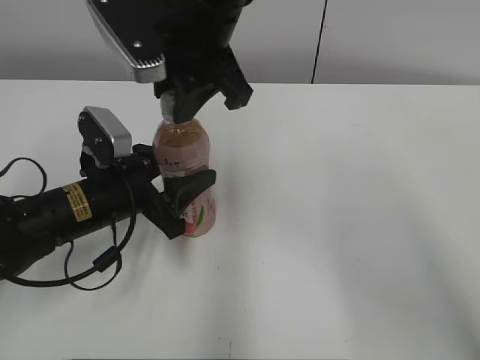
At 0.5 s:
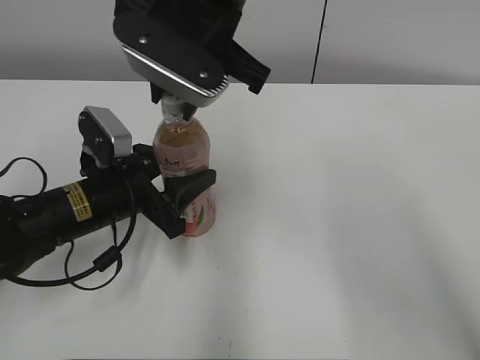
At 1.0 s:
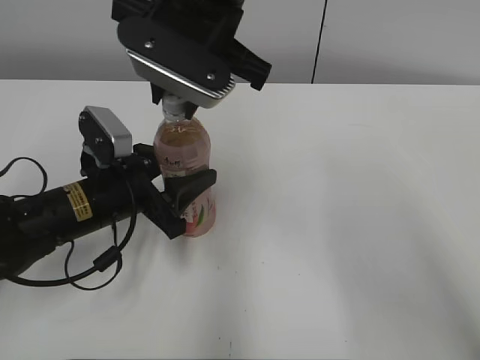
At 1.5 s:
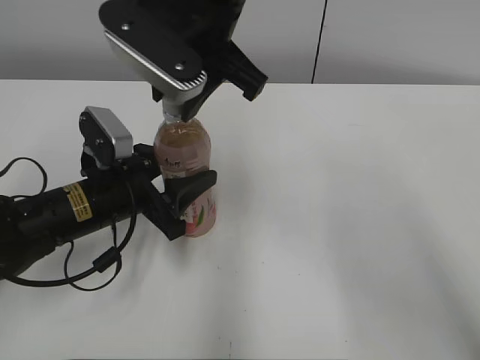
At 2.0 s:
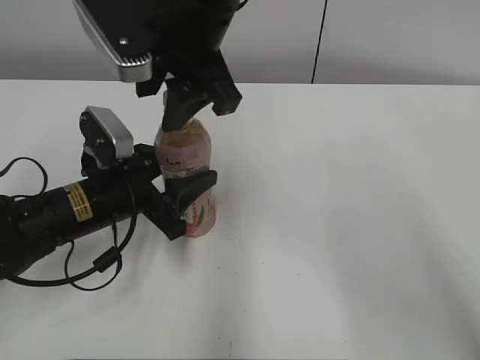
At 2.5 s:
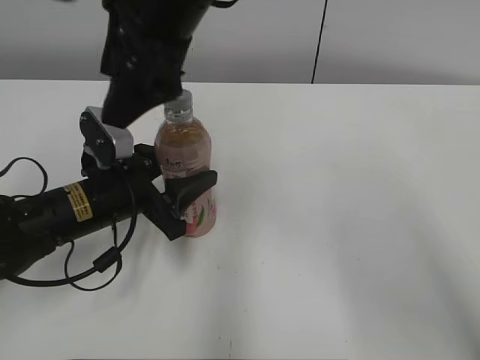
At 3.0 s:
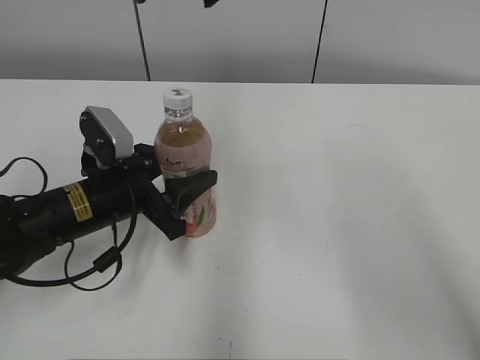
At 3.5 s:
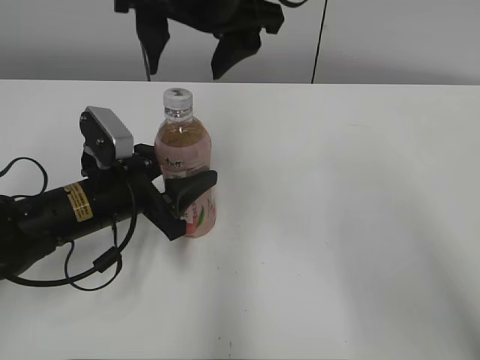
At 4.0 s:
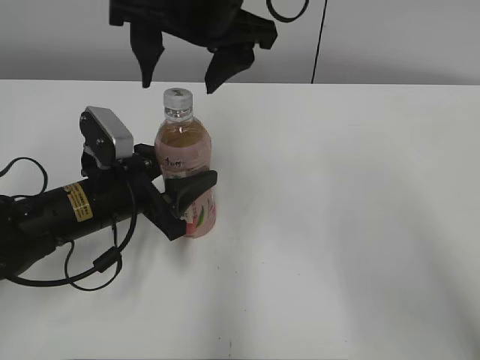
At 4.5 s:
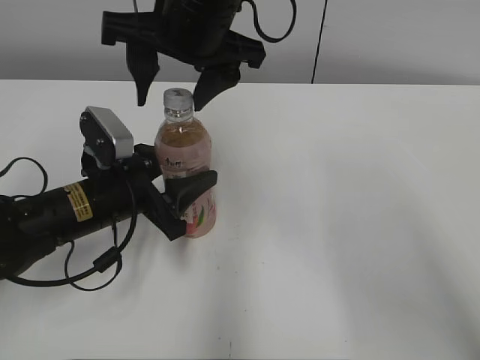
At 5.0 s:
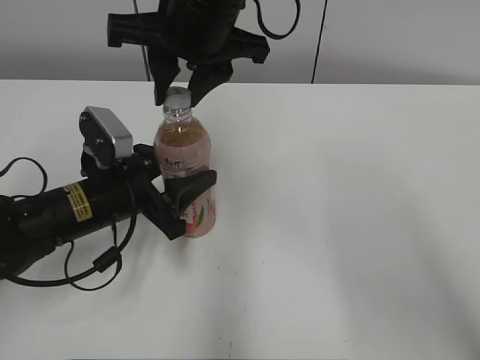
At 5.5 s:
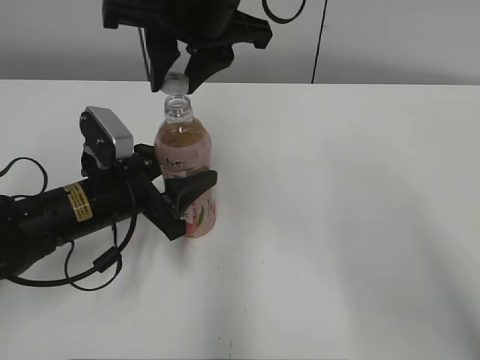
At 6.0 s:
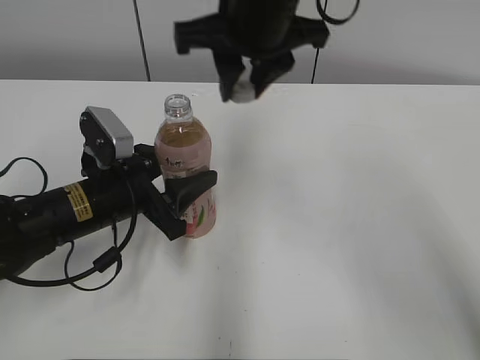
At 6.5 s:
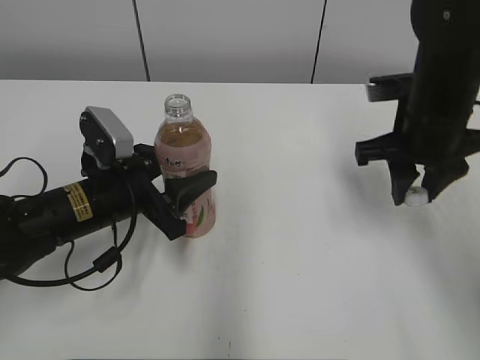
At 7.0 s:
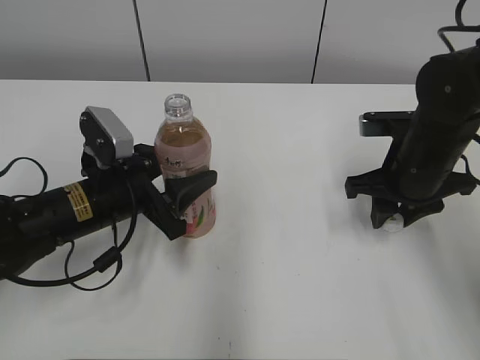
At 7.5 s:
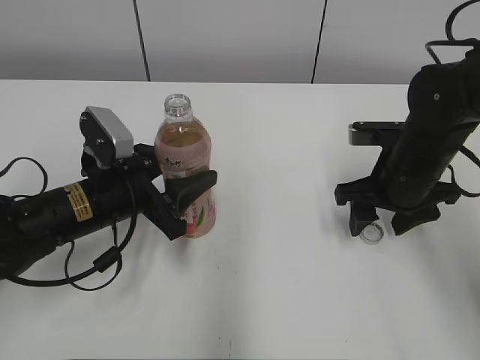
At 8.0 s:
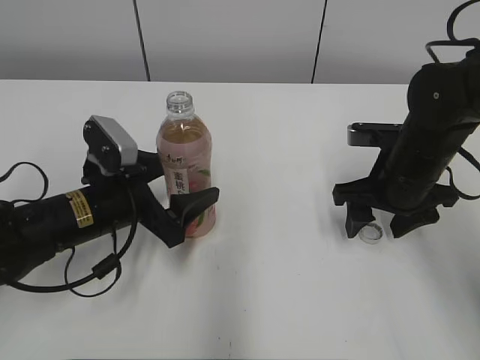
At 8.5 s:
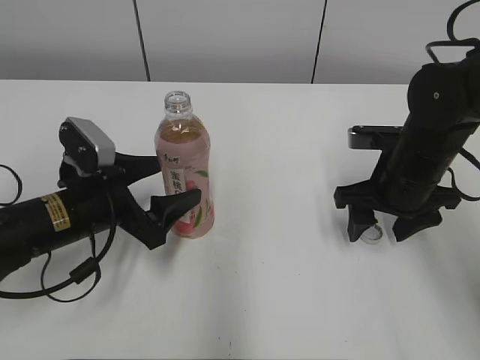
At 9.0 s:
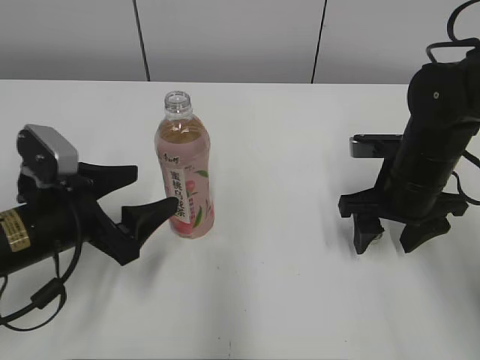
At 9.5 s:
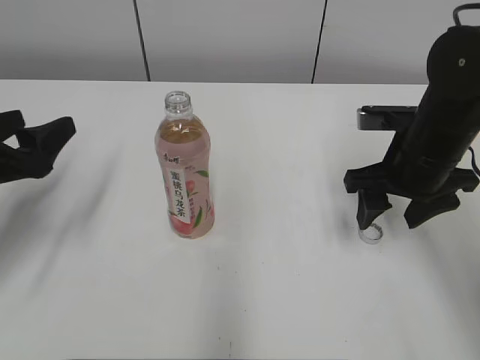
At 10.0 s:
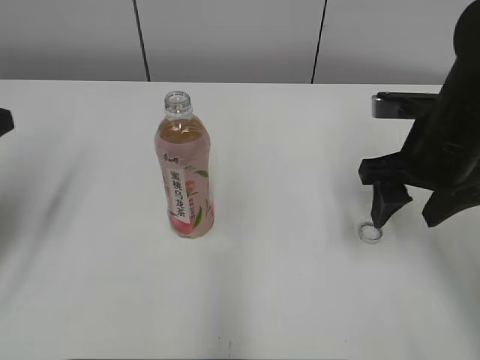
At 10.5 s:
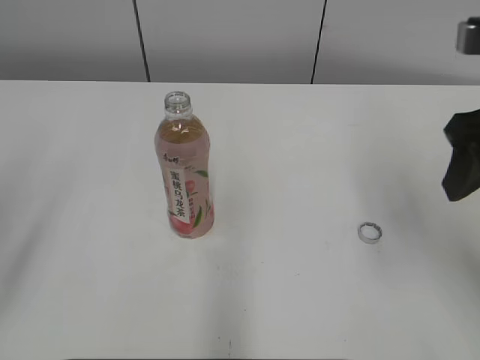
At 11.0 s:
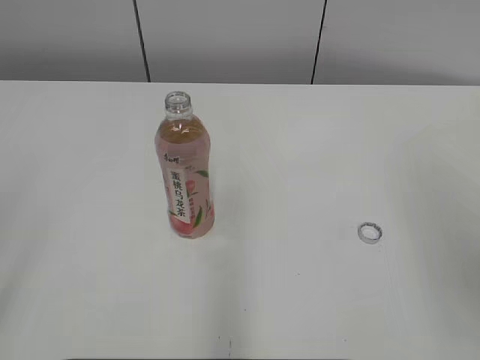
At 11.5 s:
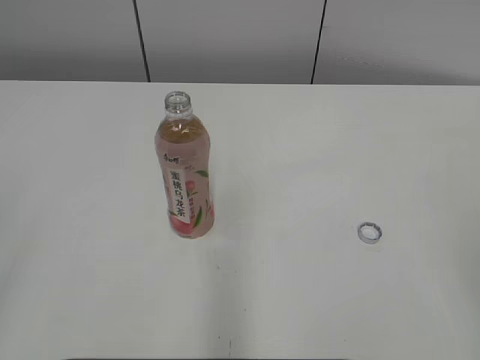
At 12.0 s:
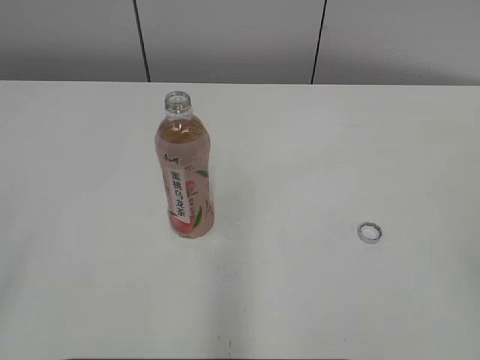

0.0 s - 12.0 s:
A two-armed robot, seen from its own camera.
Step, 5.5 s - 7.5 s: Place the bottle cap on the right.
0.0 s - 2.0 s: The right gripper opens its fingers.
2.0 s - 4.0 s: The right gripper travels upward and back again, some 10 cm each way, and opens.
4.0 s - 6.0 s: The right gripper closes.
6.0 s - 8.0 s: The left gripper opens its fingers; the right gripper heads downward and to the right, covering approximately 25 cm, and opens.
8.0 s - 10.0 s: The right gripper goes about 5 cm upward, while the left gripper is displaced to the left and upward by roughly 20 cm.
10.0 s - 12.0 s: The right gripper shifts roughly 30 cm backward and to the right. Meanwhile the left gripper goes roughly 25 cm backward.

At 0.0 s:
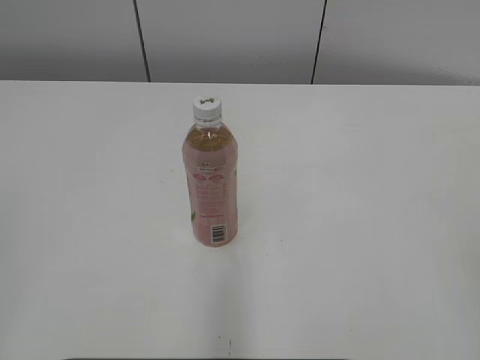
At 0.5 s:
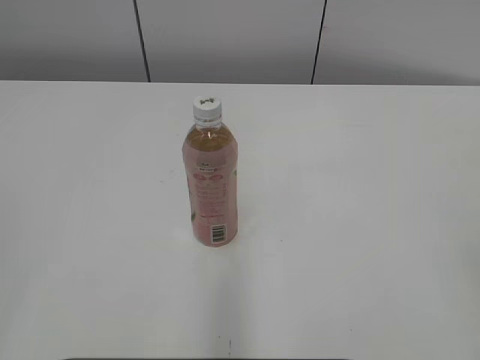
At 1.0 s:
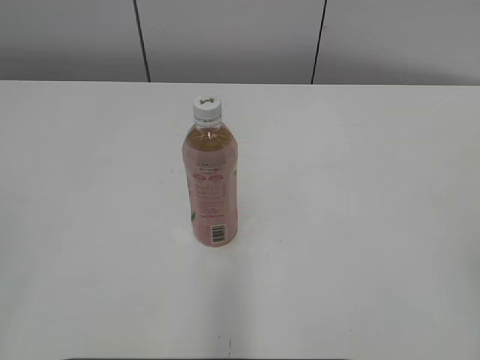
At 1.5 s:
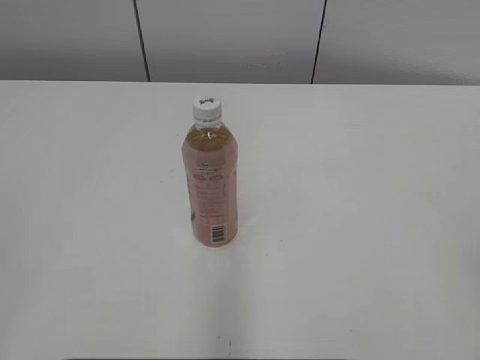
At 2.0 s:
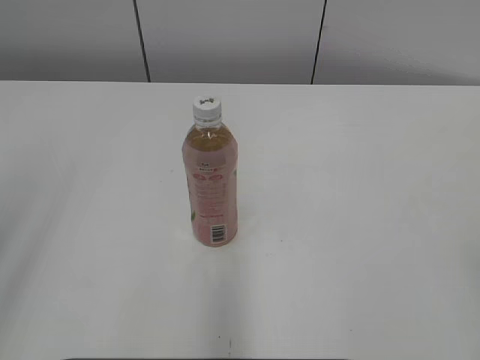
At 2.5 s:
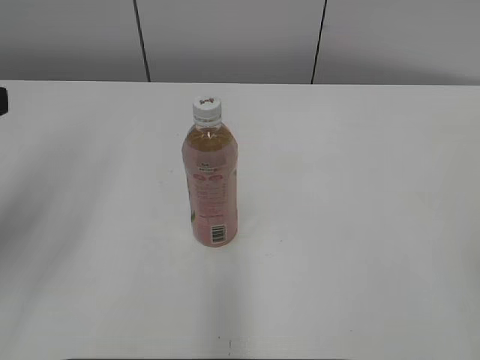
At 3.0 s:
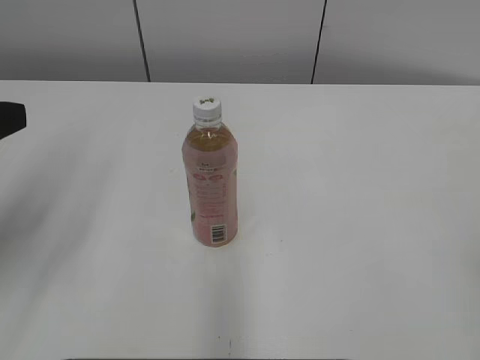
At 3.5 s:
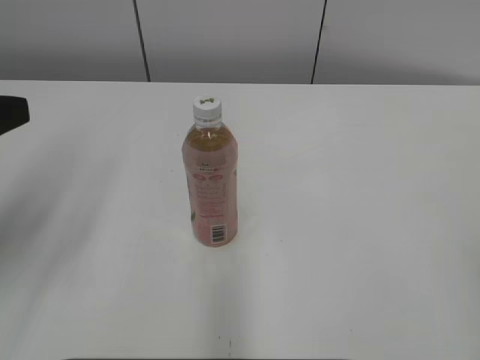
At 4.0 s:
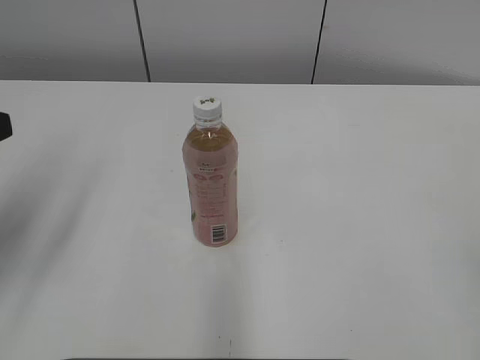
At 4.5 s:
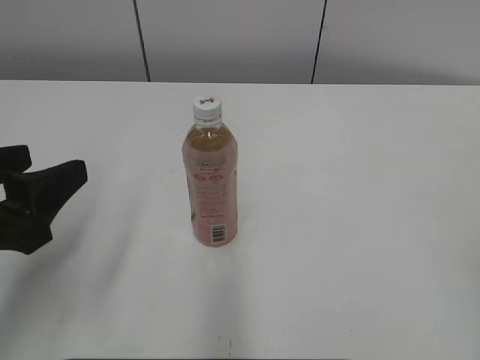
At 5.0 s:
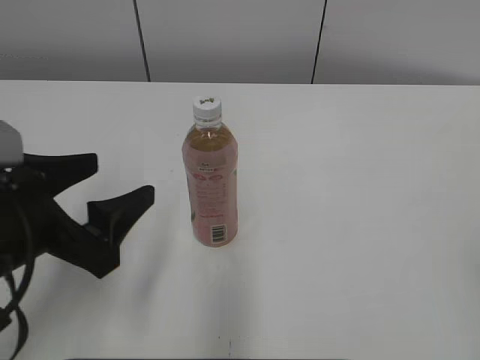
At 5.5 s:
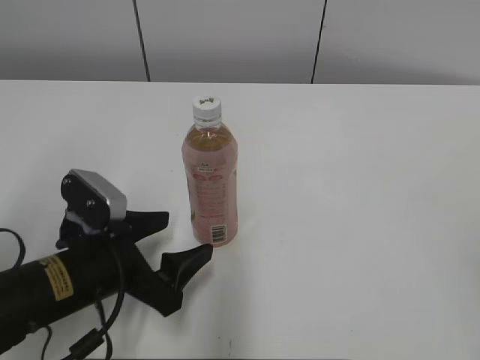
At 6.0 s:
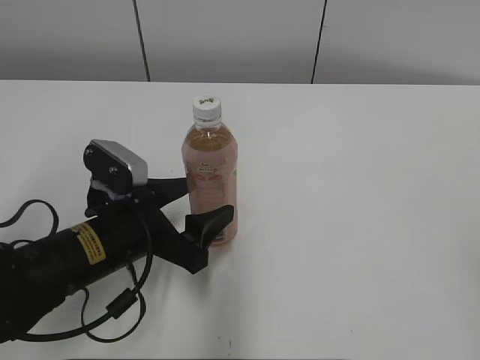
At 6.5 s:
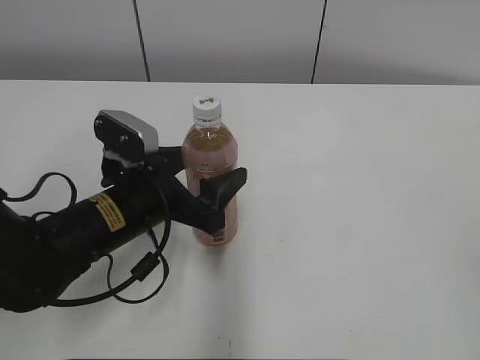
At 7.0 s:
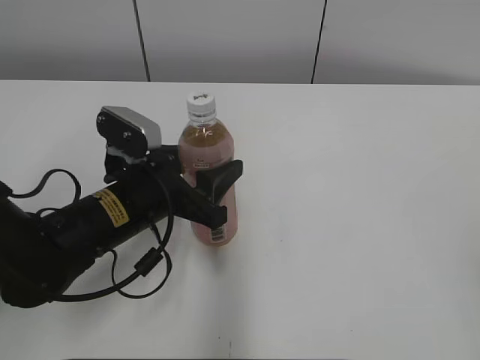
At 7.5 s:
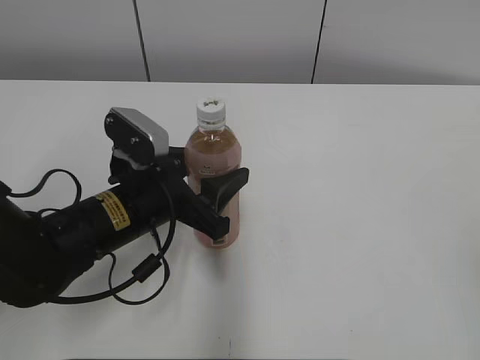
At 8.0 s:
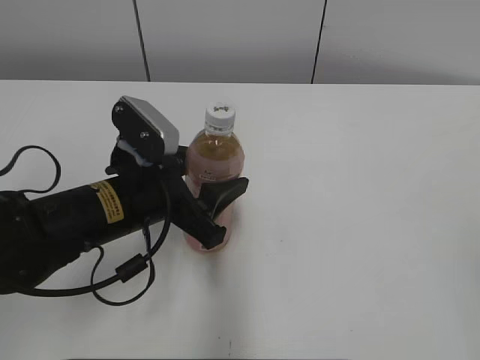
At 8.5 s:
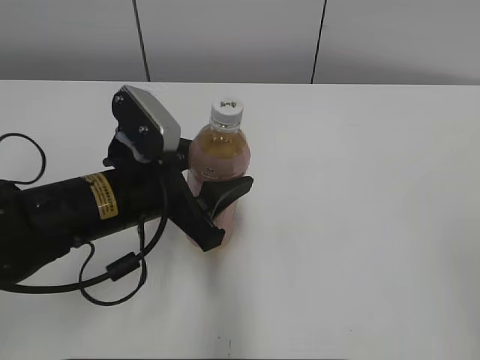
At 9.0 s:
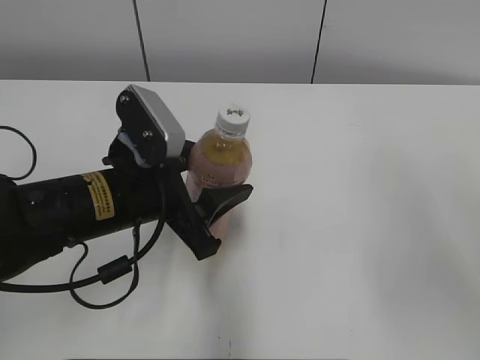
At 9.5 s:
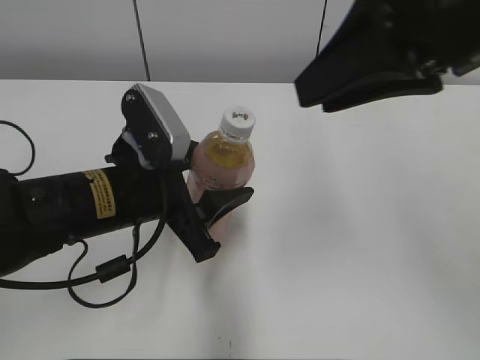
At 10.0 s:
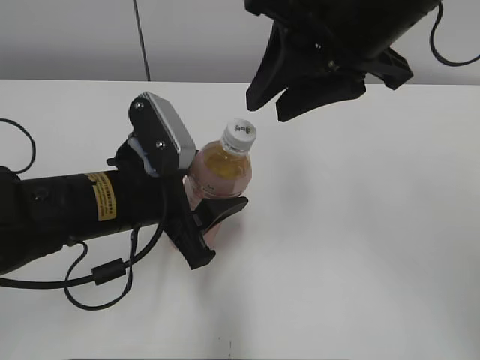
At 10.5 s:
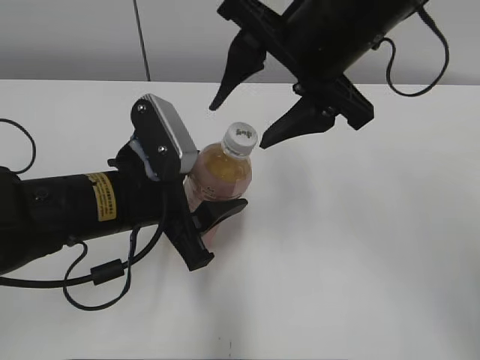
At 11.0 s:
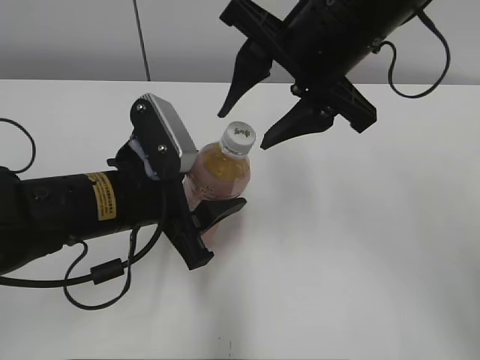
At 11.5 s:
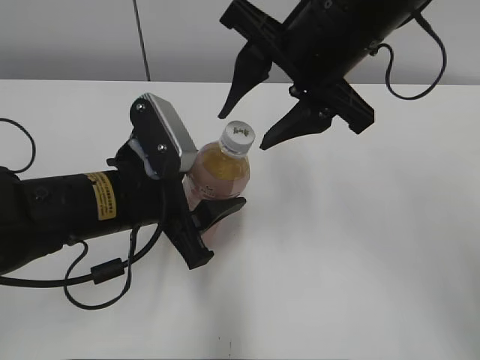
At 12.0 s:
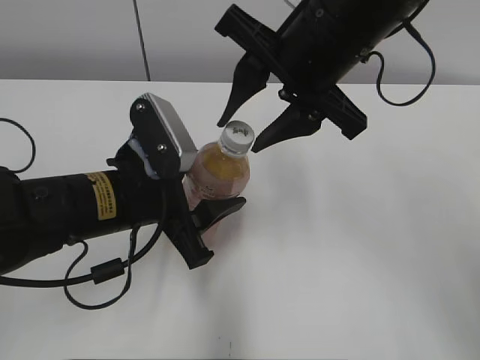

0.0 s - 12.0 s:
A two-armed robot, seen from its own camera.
Step, 0.0 s - 7.0 s: Grab the Peach Oolong Tea with the left hand.
2.0 s - 4.0 s: The left gripper is displaced forward and downward by about 15 cm, and opens up.
4.0 s - 6.0 s: The left gripper is displaced downward and to the right by approximately 20 cm.
6.0 s - 8.0 s: The left gripper closes up.
8.0 s - 10.0 s: The right gripper shifts about 35 cm forward and to the left.
10.0 s - 12.0 s: The right gripper changes place by roughly 5 cm, and opens and closes again.

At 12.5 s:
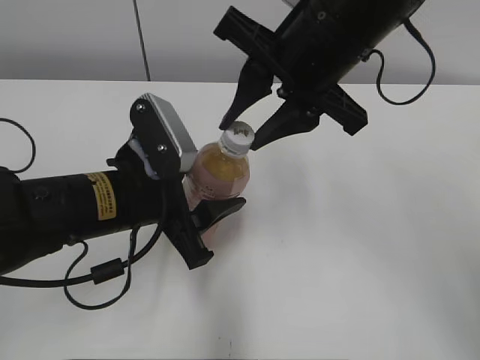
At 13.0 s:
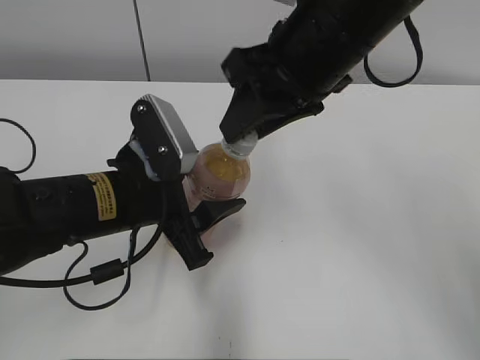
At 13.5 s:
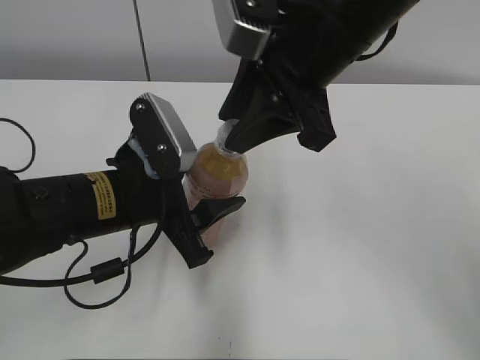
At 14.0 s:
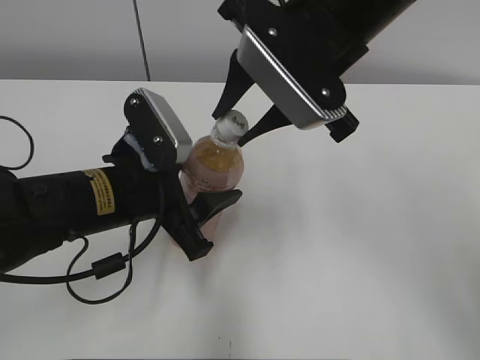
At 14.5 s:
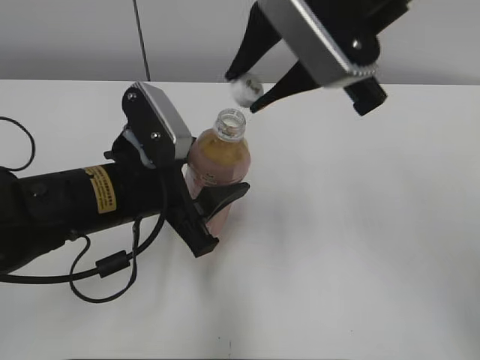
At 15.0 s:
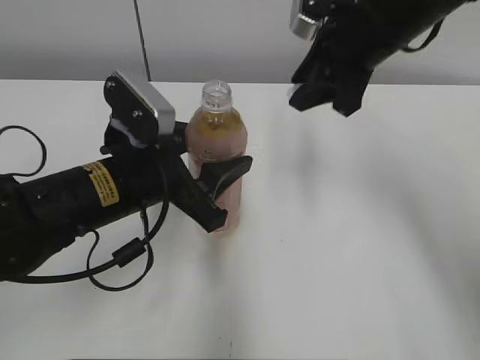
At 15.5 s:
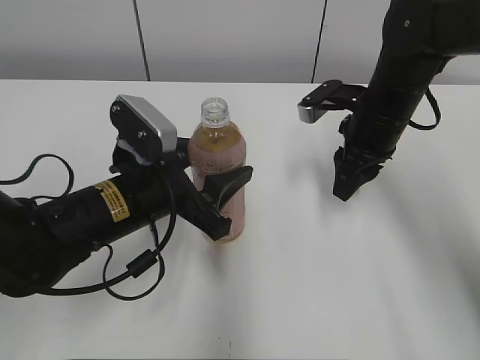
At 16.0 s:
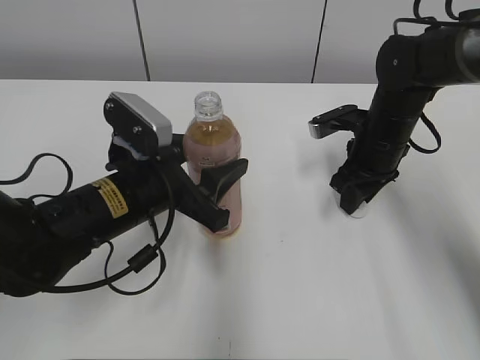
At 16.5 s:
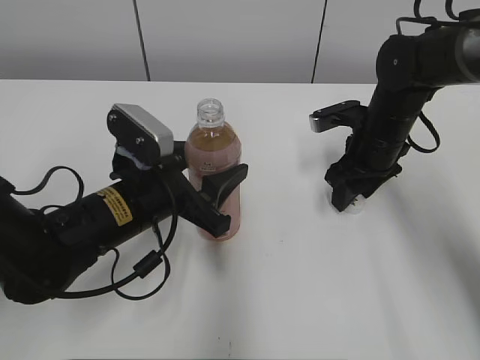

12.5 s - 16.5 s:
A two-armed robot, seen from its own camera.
Step, 12.5 s - 14.0 s: Secure the Peach Oolong Tea with the left hand.
Step, 14.5 s - 16.0 s: Place the bottle cap on the right.
14.5 s - 16.5 s: The right gripper shifts about 25 cm downward, forward and to the right, and opens.
